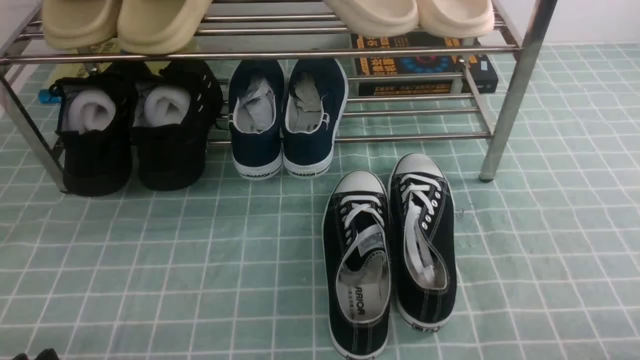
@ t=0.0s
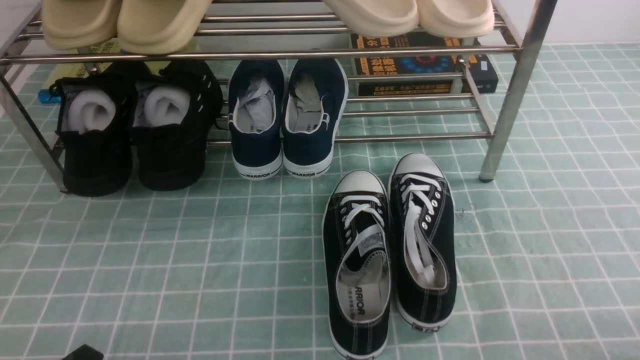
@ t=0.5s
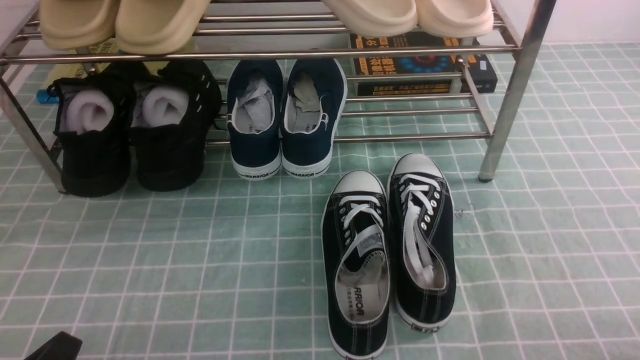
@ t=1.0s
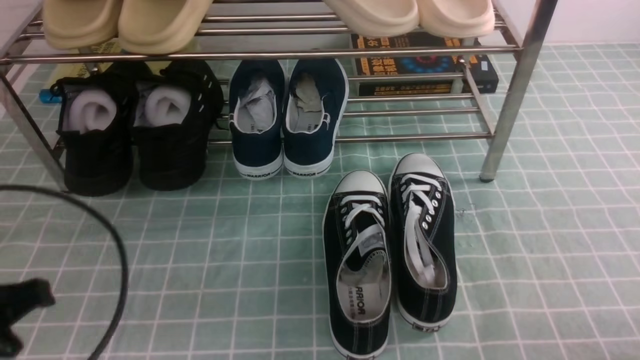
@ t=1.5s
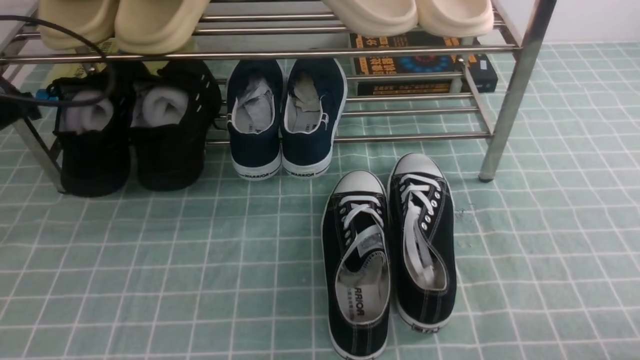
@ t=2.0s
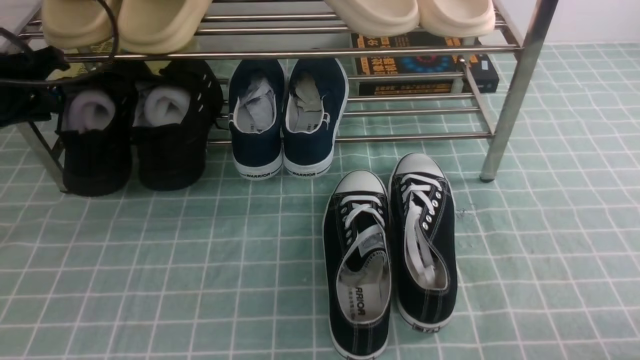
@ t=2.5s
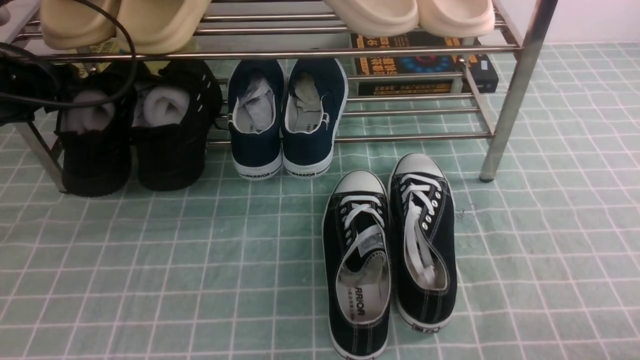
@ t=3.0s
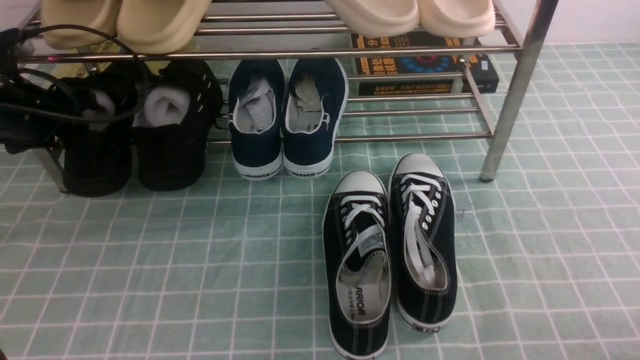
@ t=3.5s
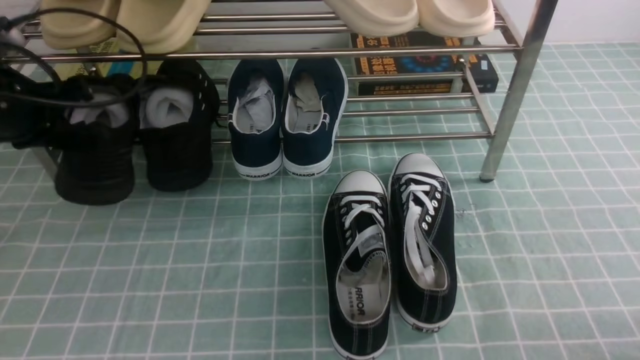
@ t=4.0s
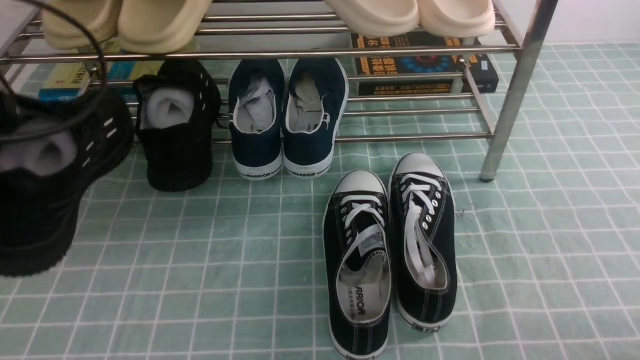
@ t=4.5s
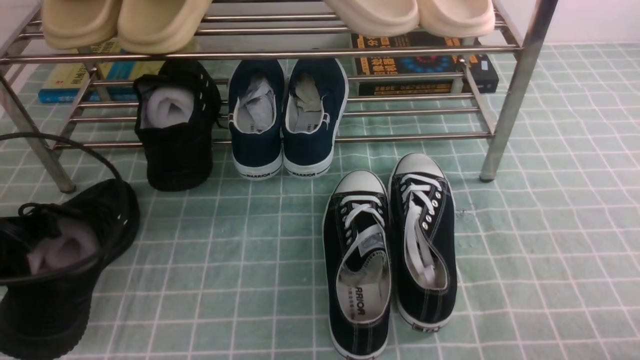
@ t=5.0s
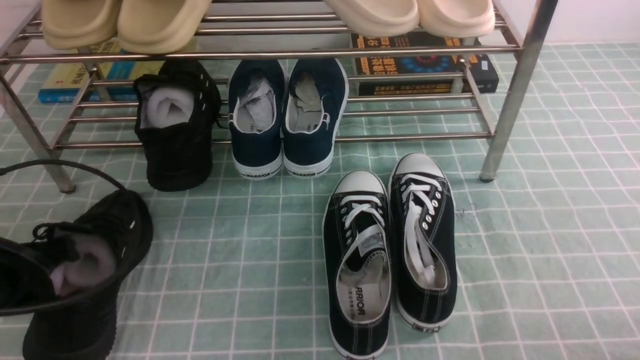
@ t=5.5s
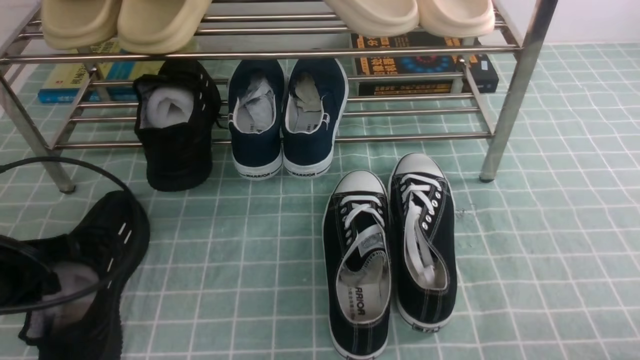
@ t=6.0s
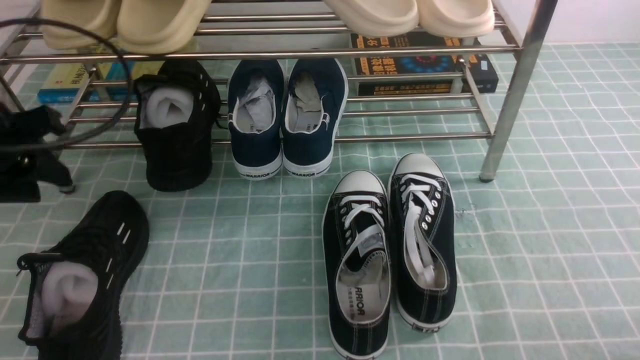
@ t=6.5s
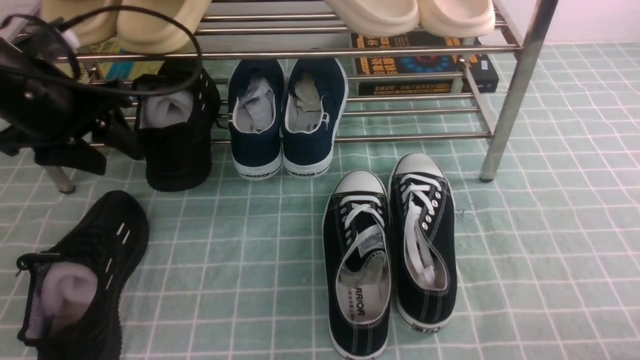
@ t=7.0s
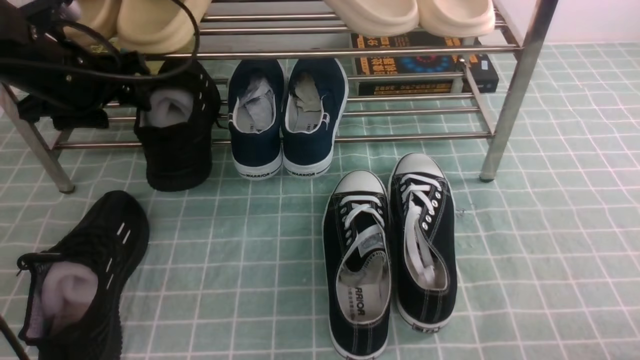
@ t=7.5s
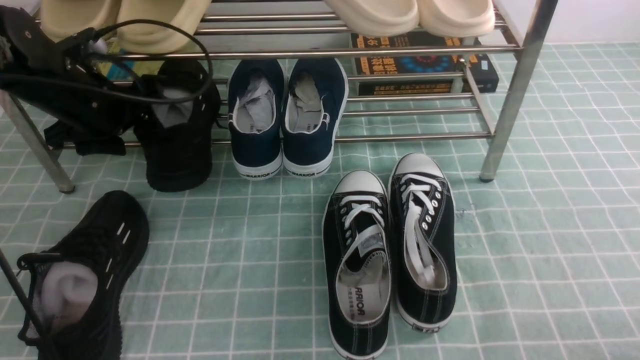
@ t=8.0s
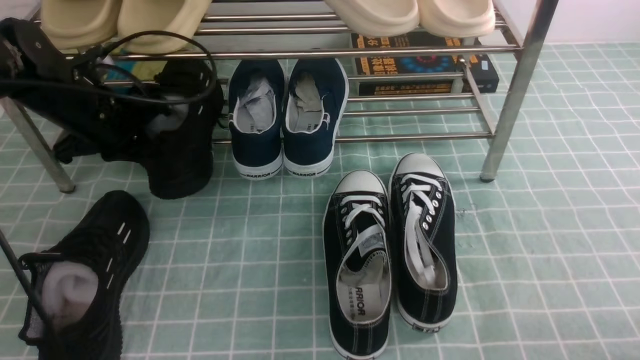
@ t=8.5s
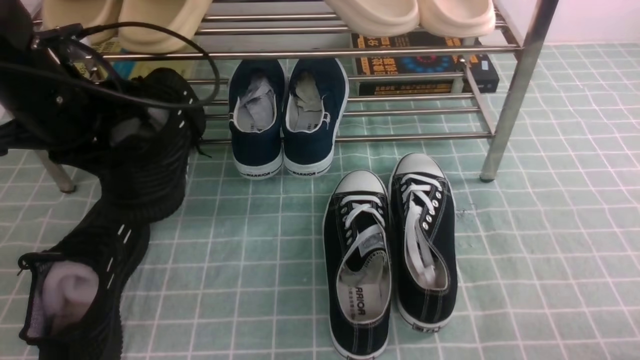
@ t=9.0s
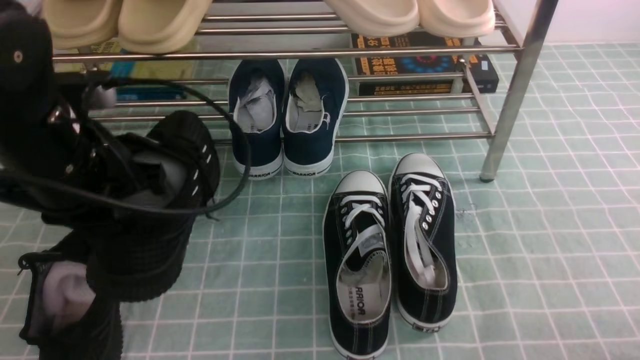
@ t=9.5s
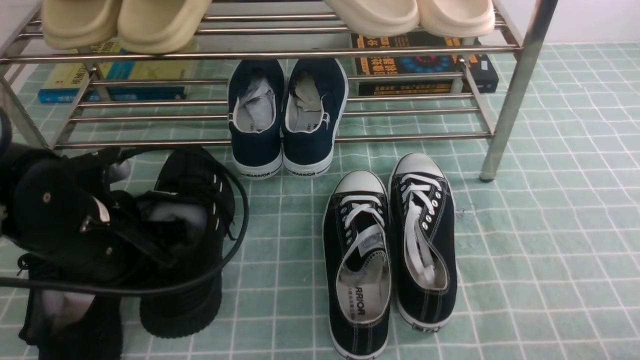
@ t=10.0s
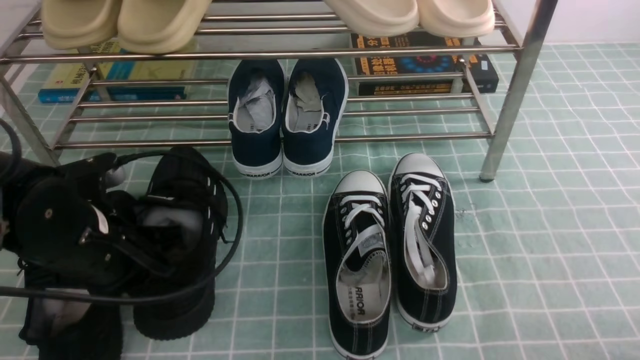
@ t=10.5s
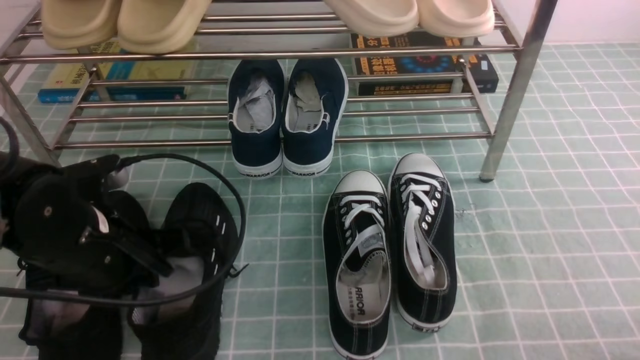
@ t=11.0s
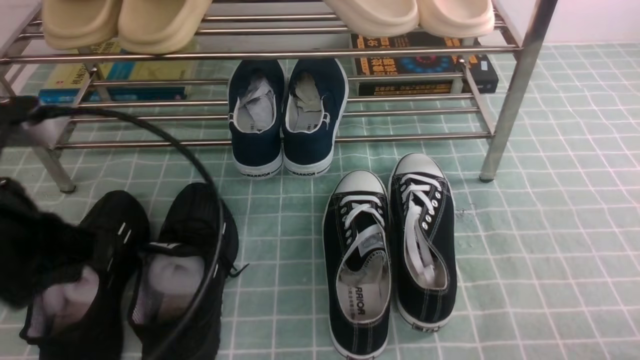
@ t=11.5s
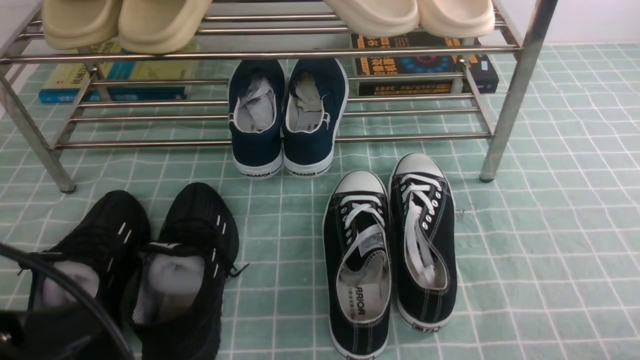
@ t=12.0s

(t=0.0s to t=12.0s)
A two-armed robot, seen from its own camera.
Step, t=0.0s - t=3.5s: use the left arm to clamp a shoe on the left side of the shoe rack.
Step, t=4.0s - t=6.0s: Use your left arm to remove the clamped shoe from the shoe rack and put it down.
Step, t=6.5s - t=8.0s: use the left arm to clamp a shoe on the left side of the shoe rack.
Step, t=8.5s - t=11.0s: Use your left arm to remove the clamped shoe from the shoe rack and put it down.
t=0.0s - t=2.0s: The left gripper heads forward and upward, covering roughly 30 cm, and closes up.
t=2.0s - t=4.0s: The left gripper opens, then closes again.
t=4.0s - t=6.0s: The left gripper is displaced backward and downward by some 15 cm.
t=6.0s - t=8.0s: The left gripper is displaced forward by some 20 cm, and opens its fingers.
t=8.0s - t=10.0s: The left gripper goes some 15 cm backward, and closes its fingers.
t=10.0s - t=12.0s: The left gripper goes roughly 20 cm backward and upward, and opens, then closes again.

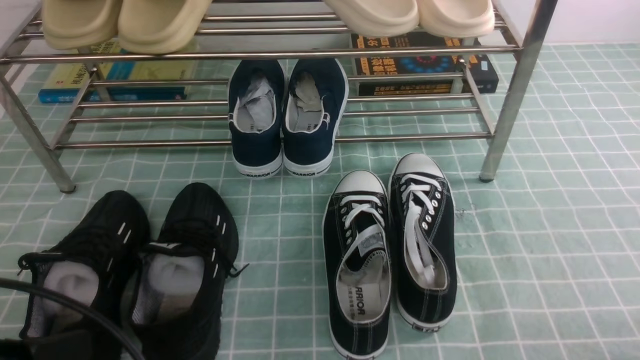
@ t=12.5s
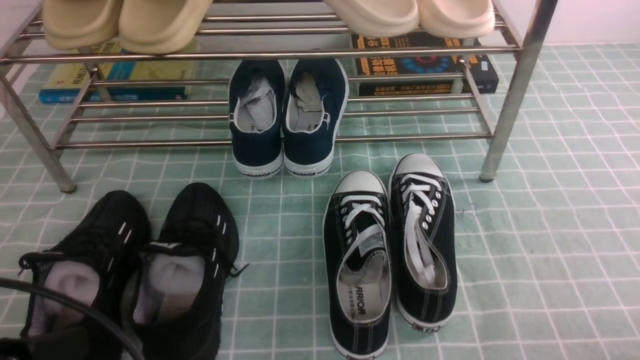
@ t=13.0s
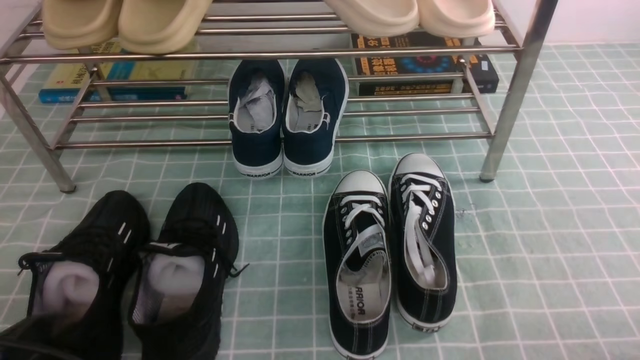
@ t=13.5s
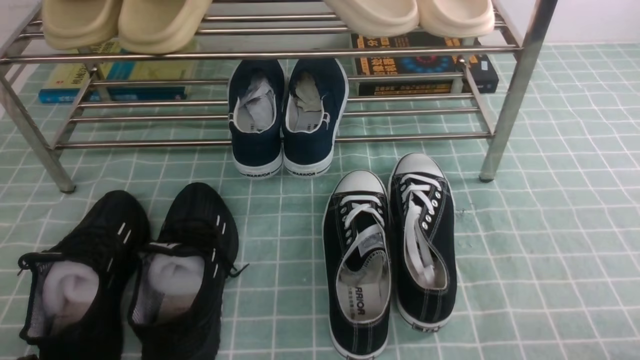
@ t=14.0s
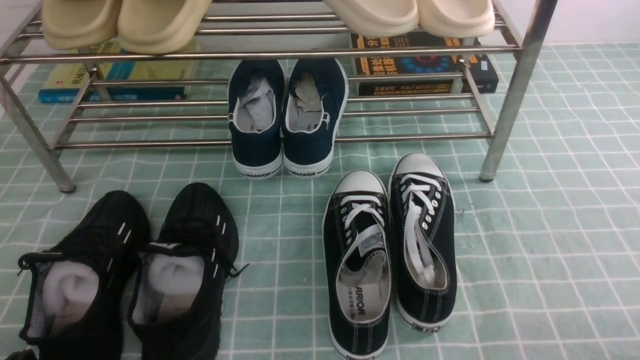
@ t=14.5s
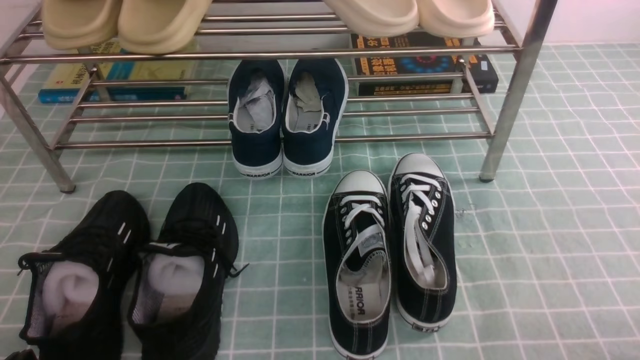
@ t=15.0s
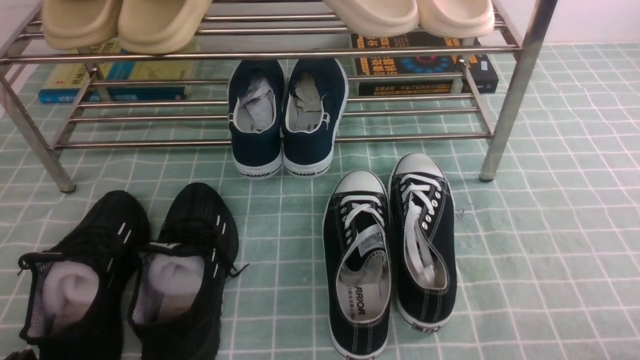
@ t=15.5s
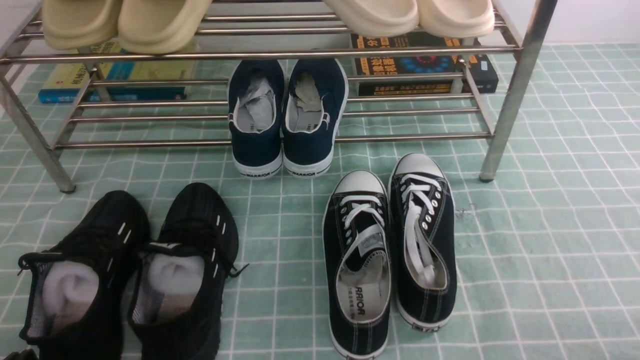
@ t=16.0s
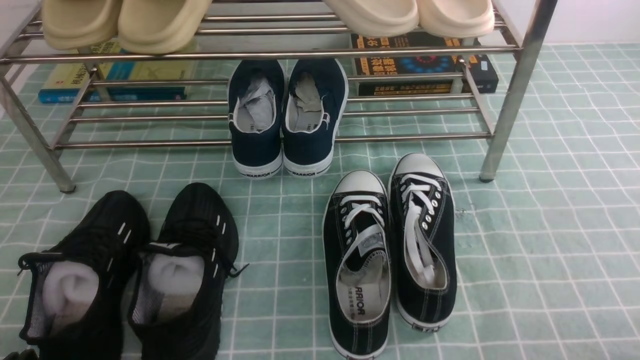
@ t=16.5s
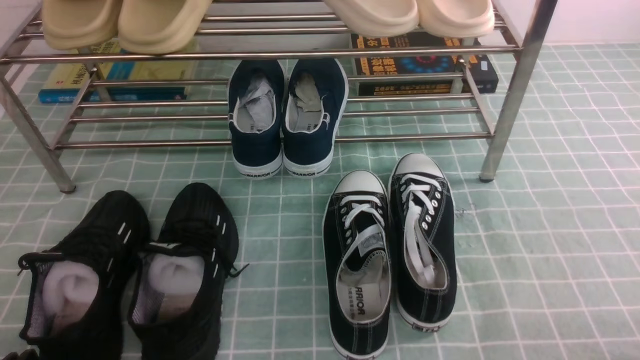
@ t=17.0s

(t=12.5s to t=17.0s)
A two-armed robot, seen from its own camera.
t=12.5s - t=14.5s: The left gripper is displaced downward by some 10 cm.
t=14.5s - t=17.0s: Both grippers stay put.
